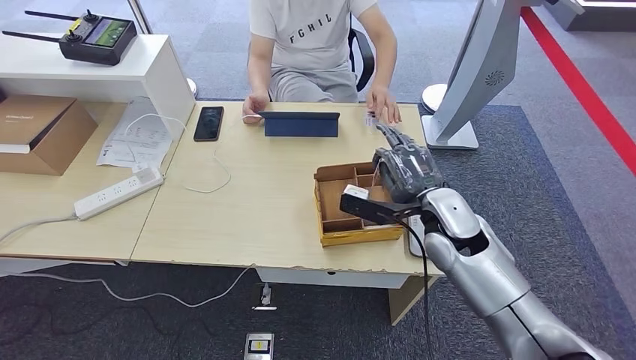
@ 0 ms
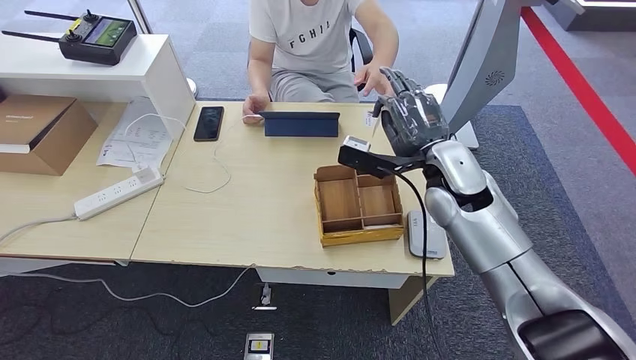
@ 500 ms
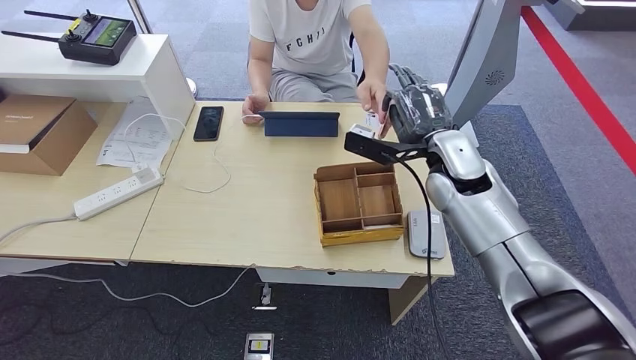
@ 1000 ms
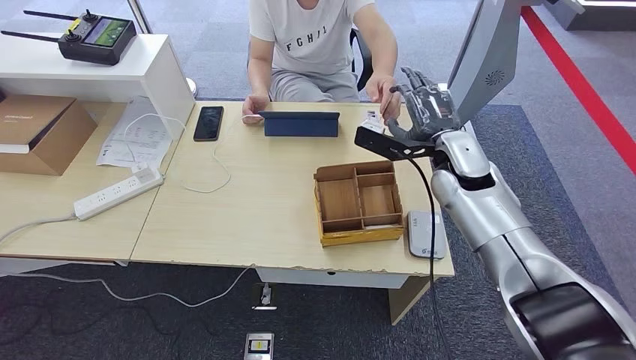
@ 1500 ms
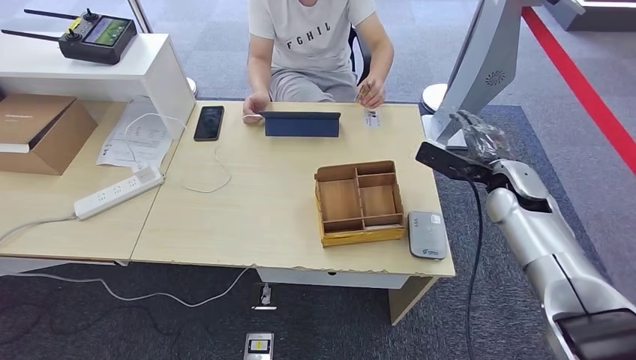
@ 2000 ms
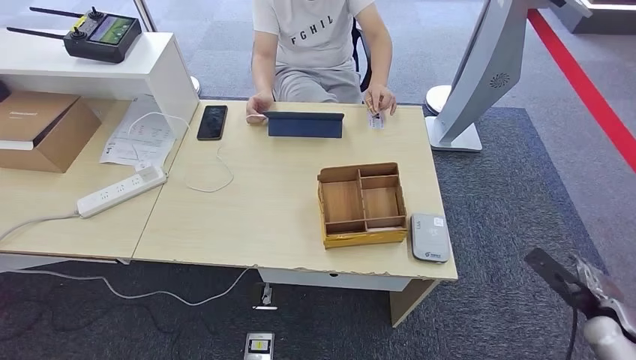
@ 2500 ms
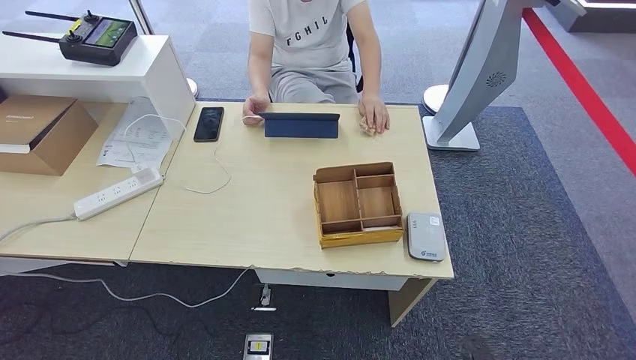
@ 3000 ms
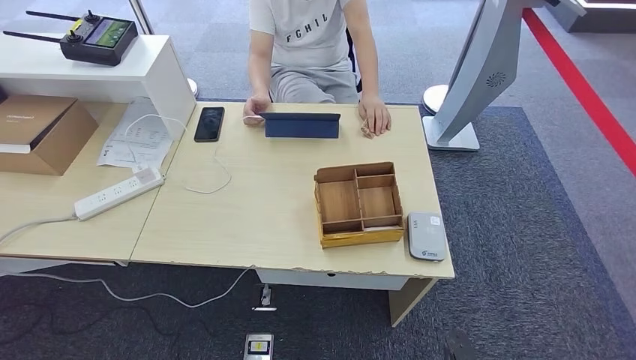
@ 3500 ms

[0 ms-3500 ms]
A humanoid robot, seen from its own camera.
Step, 0 ms to 3500 ms: Hand the room key to the person.
0 ms to 2000 ms: The right hand is displaced to the right by approximately 15 cm.
2000 ms to 3500 ms: The right hand goes roughly 50 cm backward and downward.
